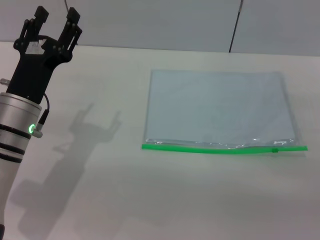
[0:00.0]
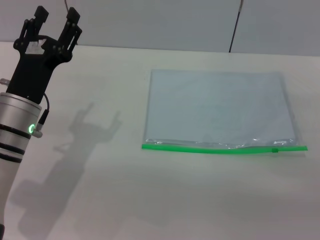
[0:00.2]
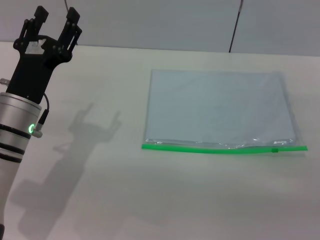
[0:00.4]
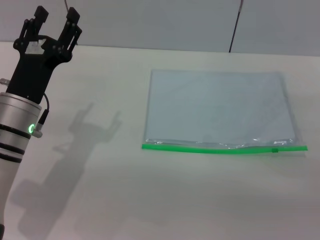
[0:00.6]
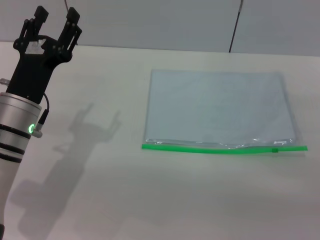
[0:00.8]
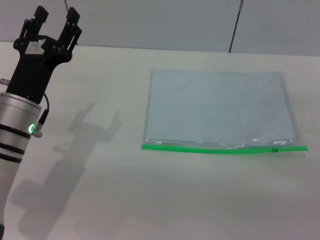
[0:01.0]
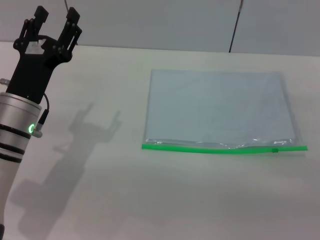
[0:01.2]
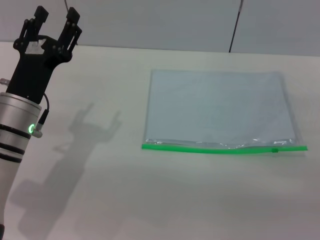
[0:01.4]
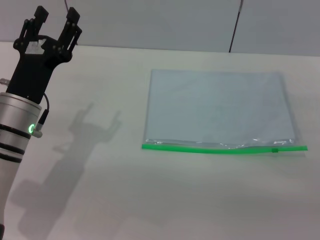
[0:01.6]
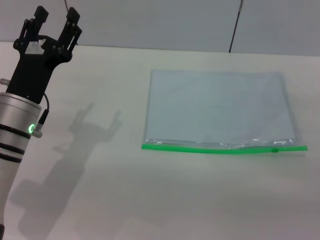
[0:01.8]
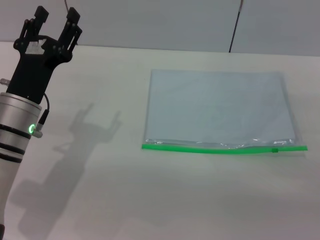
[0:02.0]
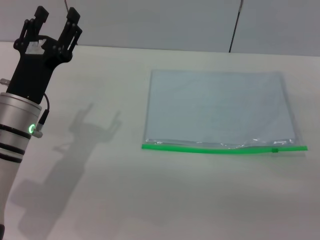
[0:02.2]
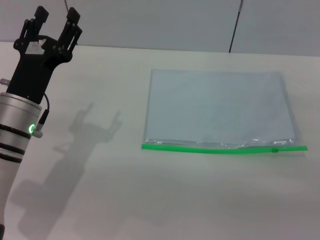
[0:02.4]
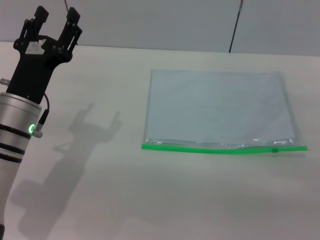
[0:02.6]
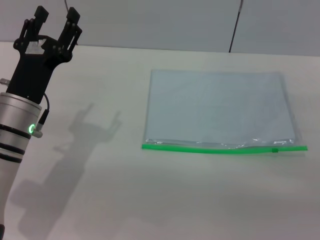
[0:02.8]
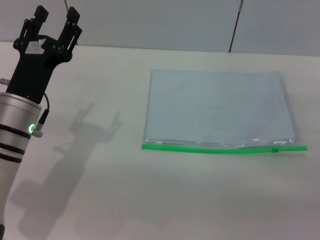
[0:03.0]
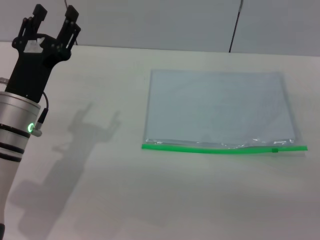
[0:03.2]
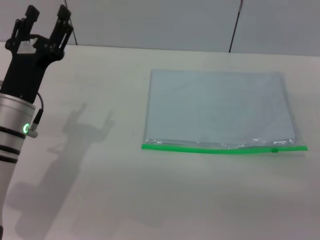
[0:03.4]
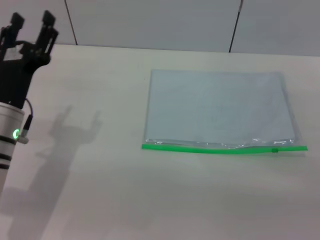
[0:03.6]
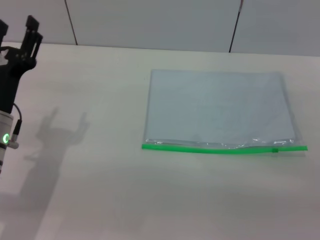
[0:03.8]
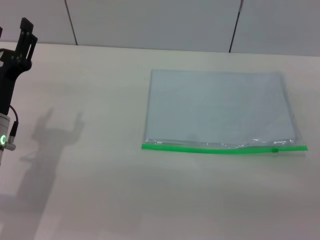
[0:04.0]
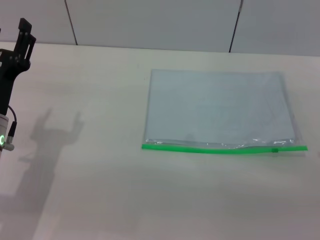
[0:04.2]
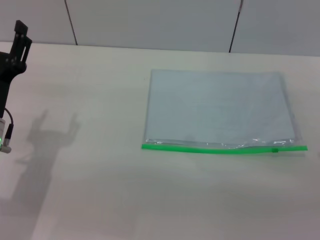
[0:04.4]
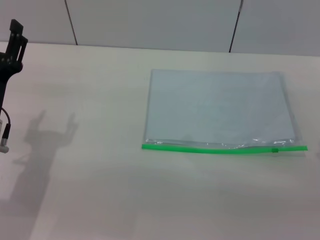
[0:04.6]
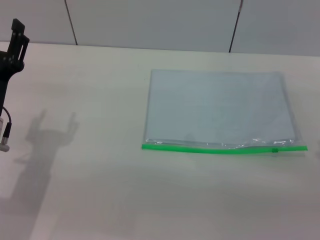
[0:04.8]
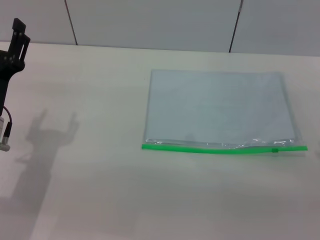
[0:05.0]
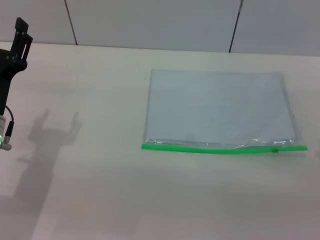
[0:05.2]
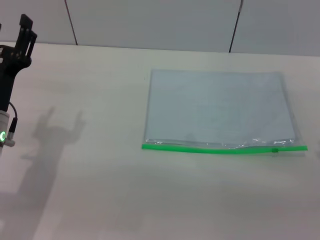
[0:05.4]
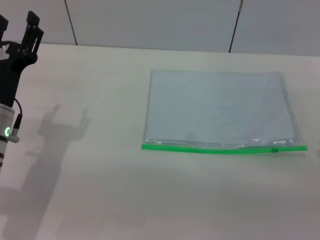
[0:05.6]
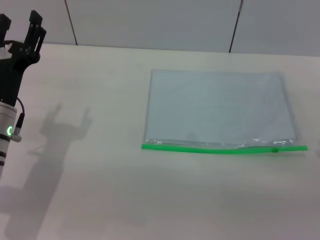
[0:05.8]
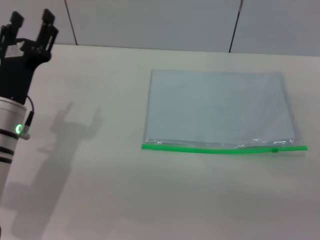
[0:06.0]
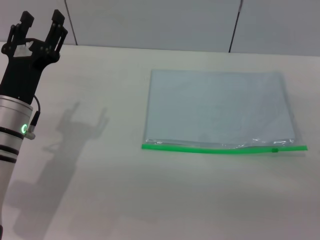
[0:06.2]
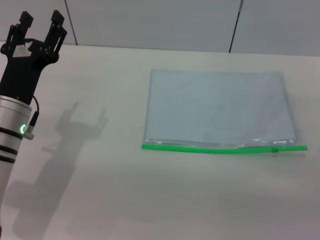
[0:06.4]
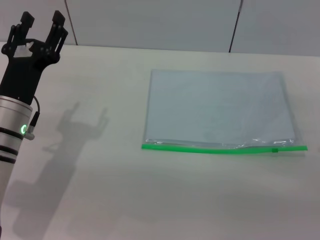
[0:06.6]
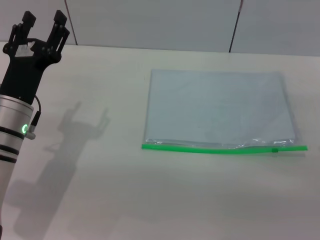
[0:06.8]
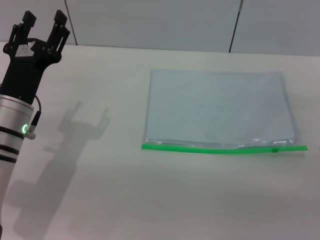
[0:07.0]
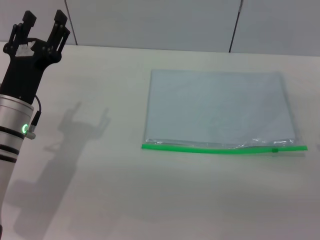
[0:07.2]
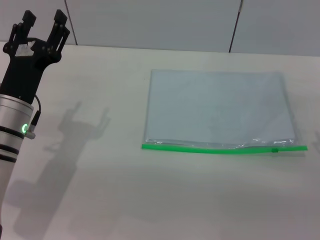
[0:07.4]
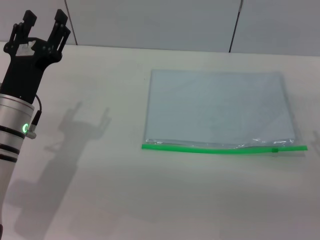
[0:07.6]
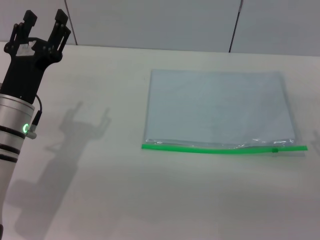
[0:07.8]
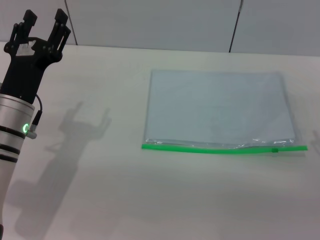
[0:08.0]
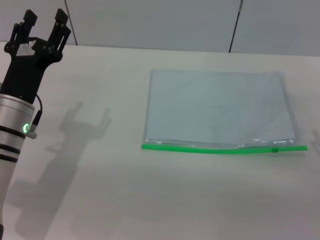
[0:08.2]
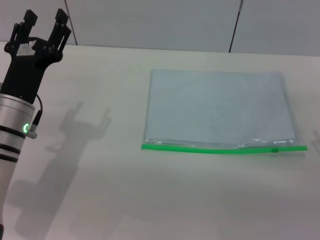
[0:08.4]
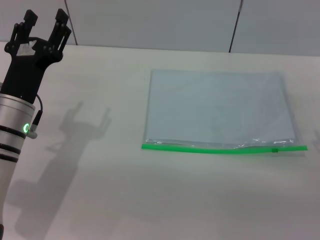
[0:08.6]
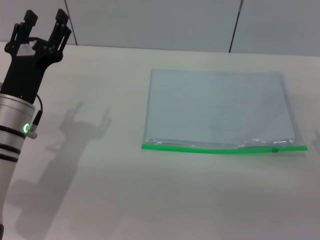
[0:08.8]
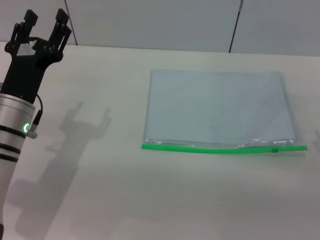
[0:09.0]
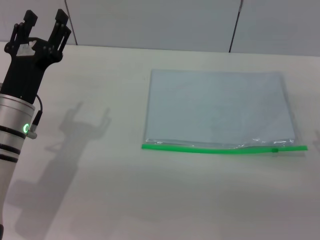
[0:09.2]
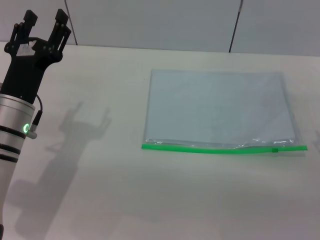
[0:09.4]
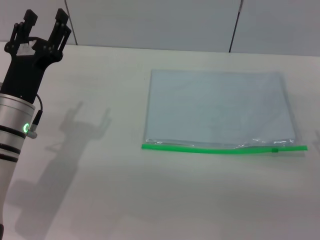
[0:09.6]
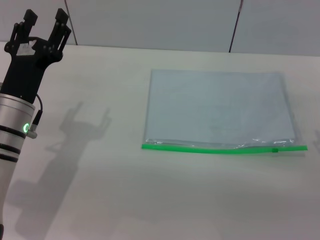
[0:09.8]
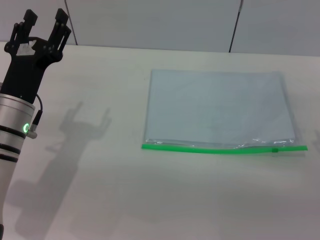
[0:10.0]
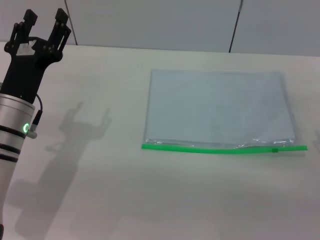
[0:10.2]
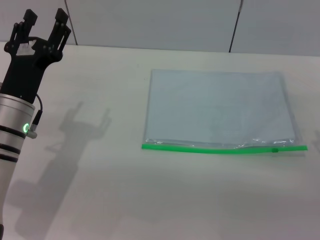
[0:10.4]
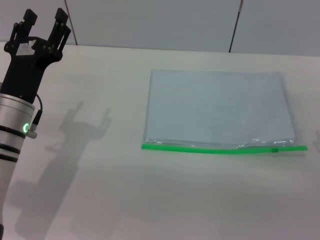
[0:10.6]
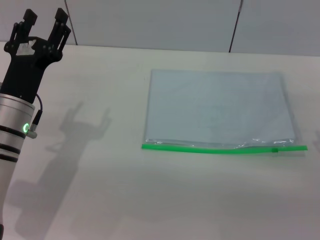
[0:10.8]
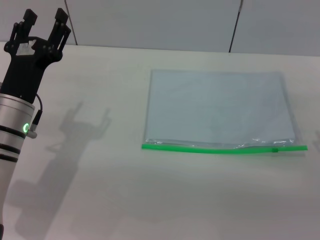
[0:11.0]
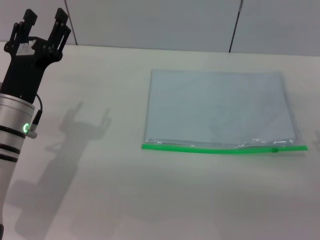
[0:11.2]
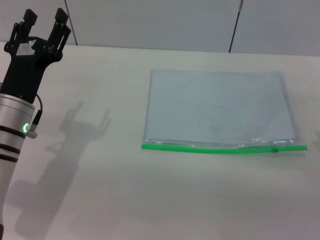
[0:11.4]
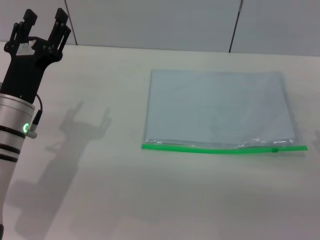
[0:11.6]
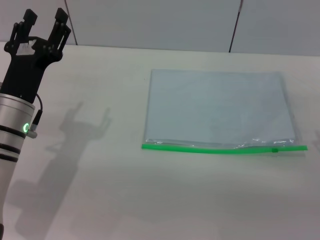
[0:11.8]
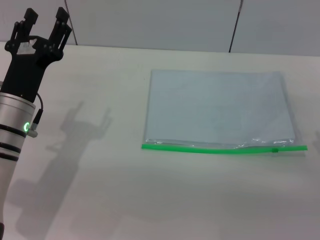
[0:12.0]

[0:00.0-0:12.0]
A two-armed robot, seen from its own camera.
0:00.0 to 0:03.0: The two grippers keep their place.
0:03.0 to 0:07.6: There are only small adjustments of the grippers.
0:07.6 to 0:10.4: Both grippers stay about where they are.
0:10.4 to 0:12.0: The grippers move only a little.

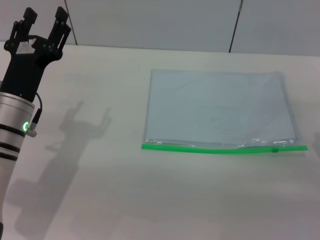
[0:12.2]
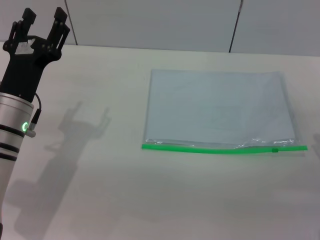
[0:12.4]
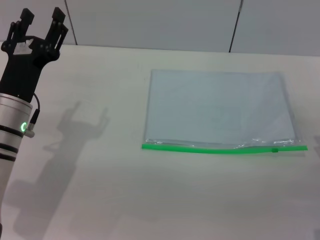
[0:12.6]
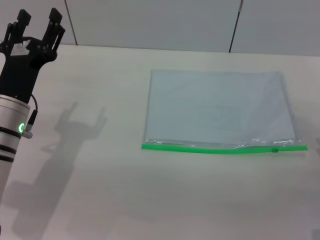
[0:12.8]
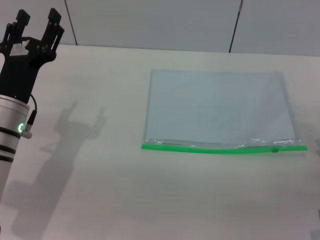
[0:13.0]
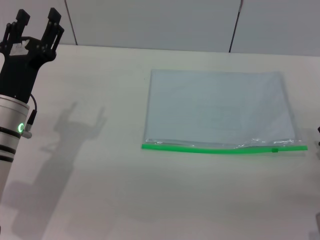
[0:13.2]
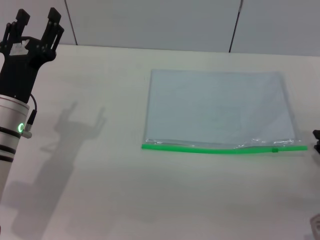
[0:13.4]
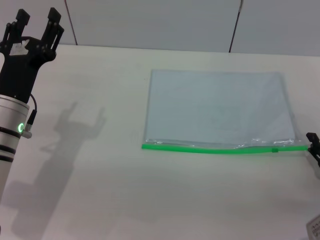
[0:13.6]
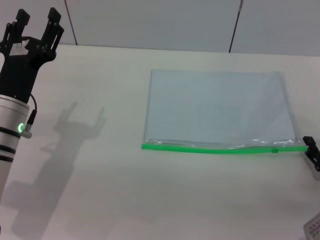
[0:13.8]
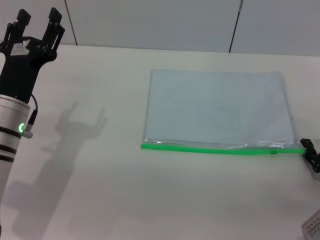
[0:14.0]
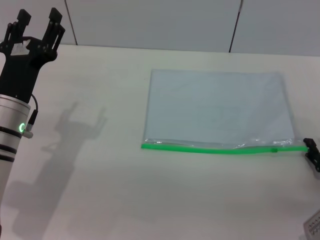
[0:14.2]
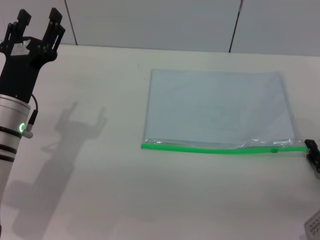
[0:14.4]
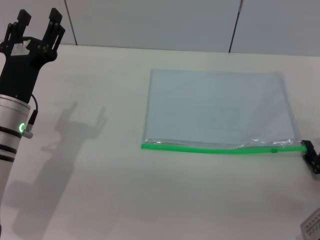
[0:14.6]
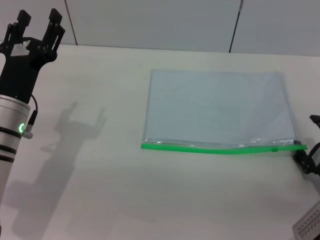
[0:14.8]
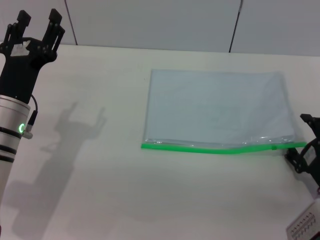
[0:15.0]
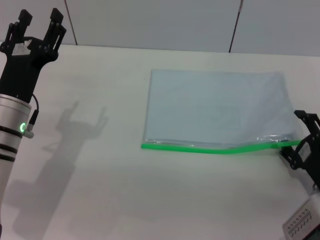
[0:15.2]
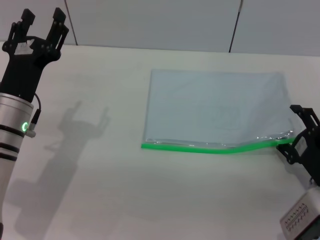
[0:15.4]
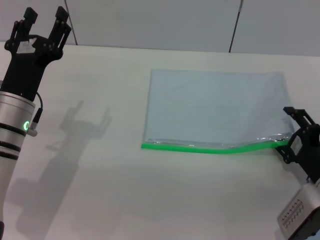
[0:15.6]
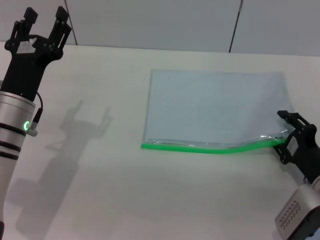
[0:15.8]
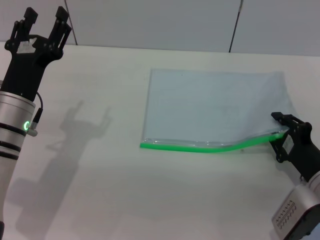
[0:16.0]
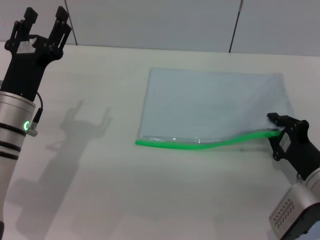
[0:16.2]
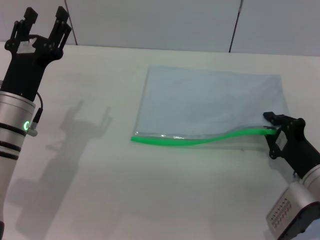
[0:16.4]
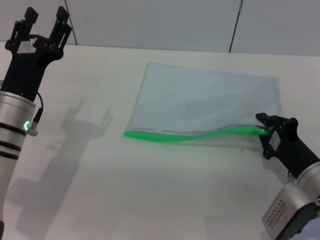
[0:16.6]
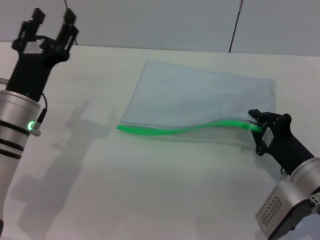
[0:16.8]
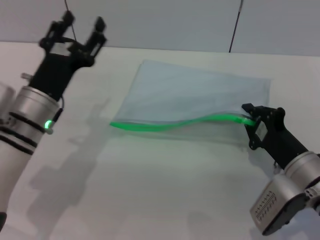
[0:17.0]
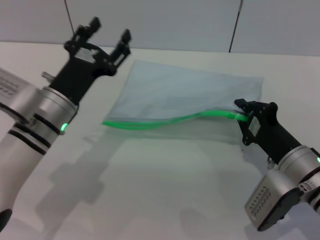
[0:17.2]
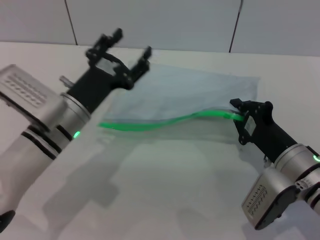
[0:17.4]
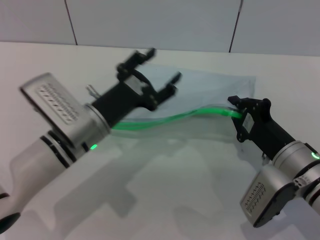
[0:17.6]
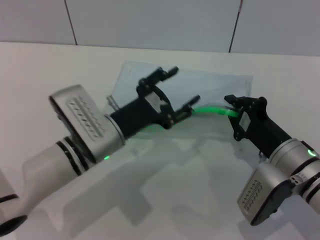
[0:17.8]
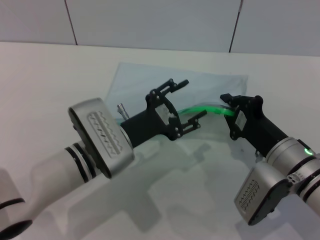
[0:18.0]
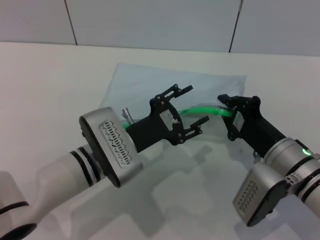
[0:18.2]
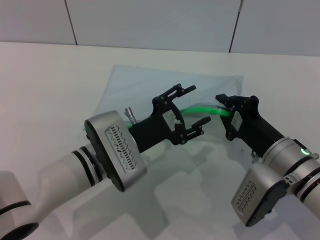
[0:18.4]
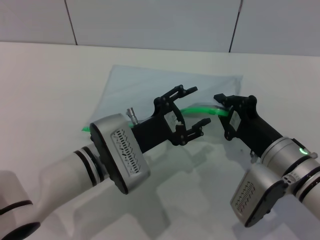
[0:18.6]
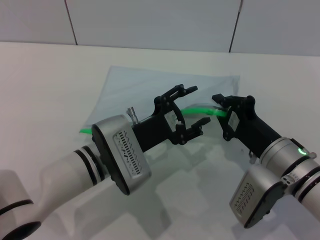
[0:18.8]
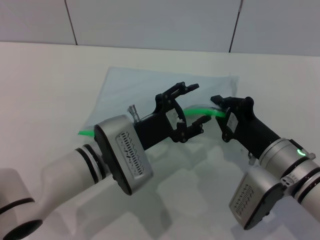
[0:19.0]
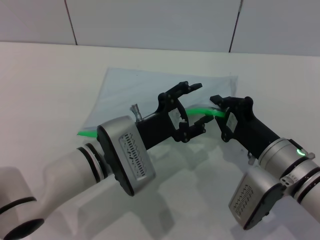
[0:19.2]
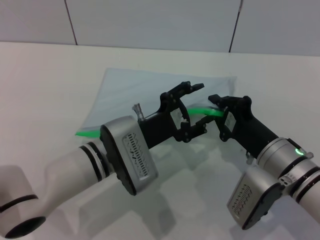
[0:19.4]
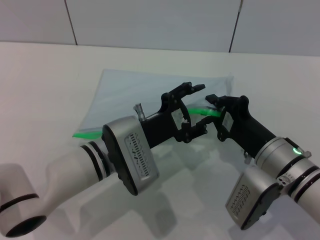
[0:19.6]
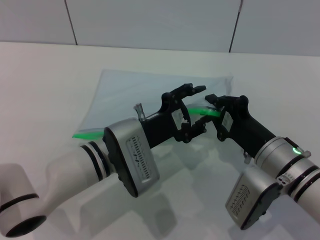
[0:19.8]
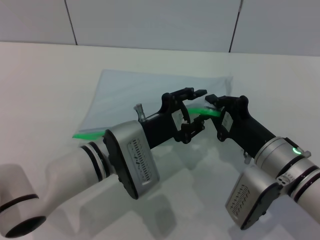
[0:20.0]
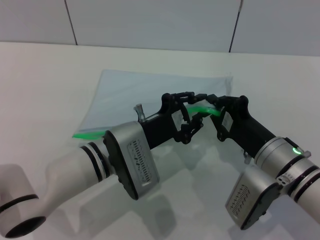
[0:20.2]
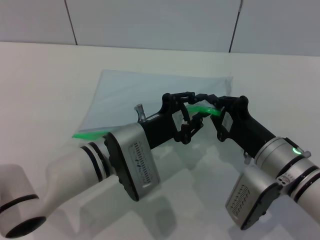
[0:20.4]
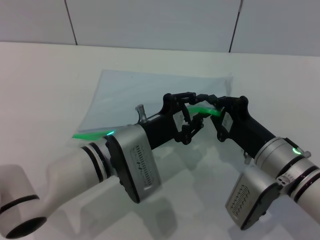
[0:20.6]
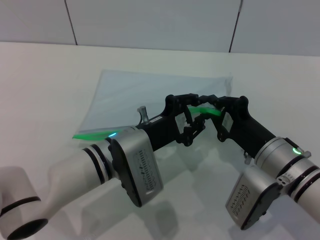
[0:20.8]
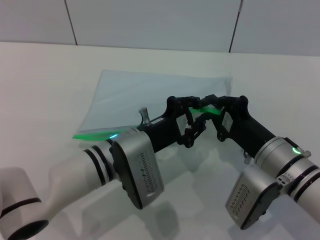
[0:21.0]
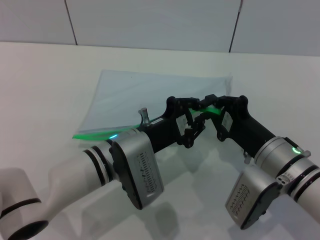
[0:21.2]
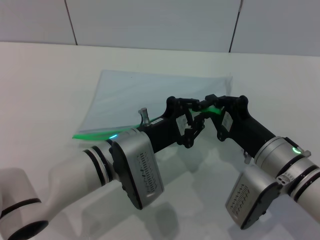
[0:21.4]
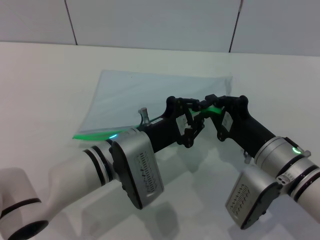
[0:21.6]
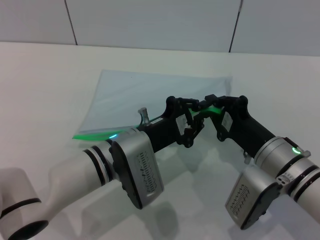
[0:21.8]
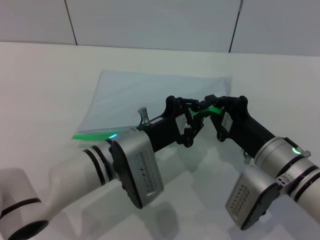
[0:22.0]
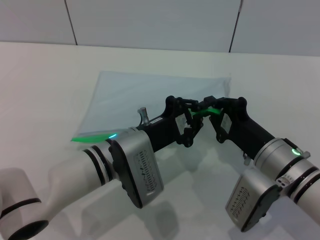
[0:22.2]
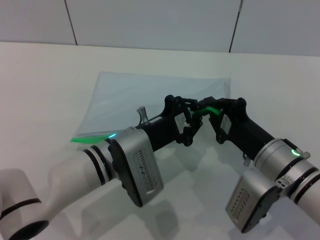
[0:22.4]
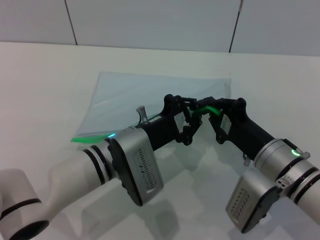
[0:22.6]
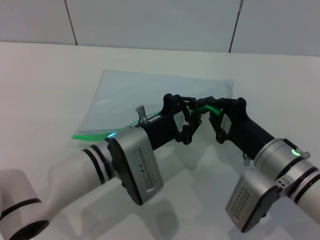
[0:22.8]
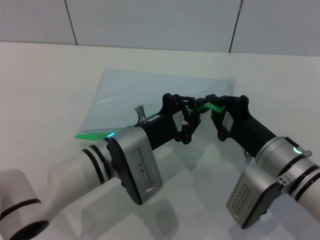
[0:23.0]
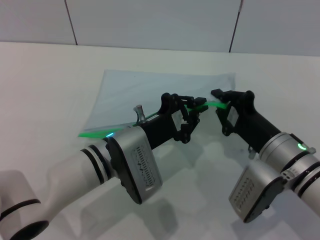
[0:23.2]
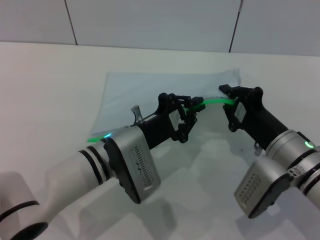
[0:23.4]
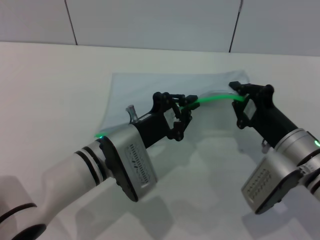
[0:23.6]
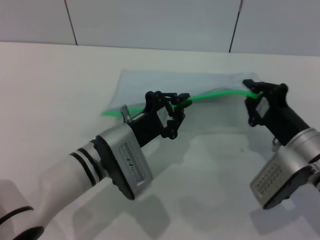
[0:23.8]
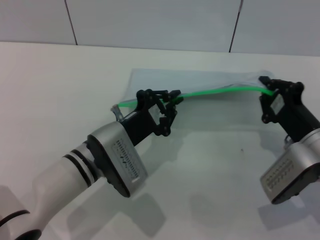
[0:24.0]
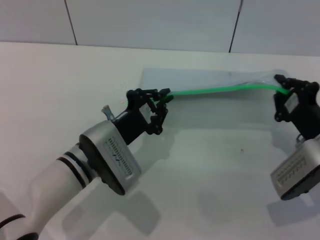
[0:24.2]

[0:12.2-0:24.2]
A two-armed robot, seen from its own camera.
Step, 0:12.2 to 0:17.0: Pick up the transparent plastic bag with the right gripper.
0:12.2 to 0:13.8: The right gripper heads downward, covering approximately 5 cm.
0:13.8 to 0:15.2: The grippers stay close to where they were, moving slightly.
0:15.2 to 0:16.6: The right gripper closes its fingers.
0:16.6 to 0:18.2: The left gripper travels to the right by some 10 cm. The right gripper travels to the left by some 5 cm.
0:18.2 to 0:19.8: The grippers move only a little.
0:19.8 to 0:21.2: The left gripper closes.
0:21.2 to 0:22.6: Both grippers stay about where they are.
0:22.6 to 0:24.2: The right gripper is displaced to the right by approximately 5 cm.
